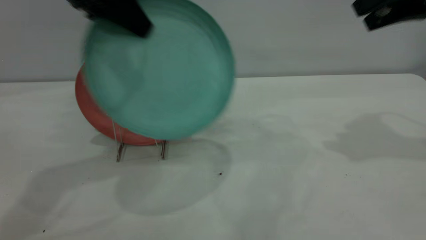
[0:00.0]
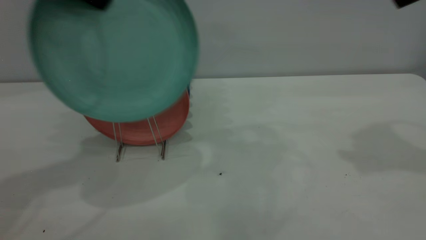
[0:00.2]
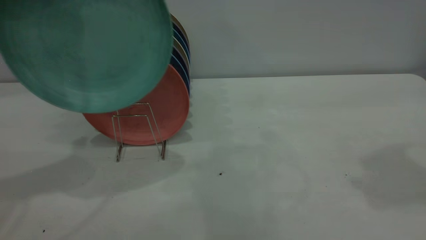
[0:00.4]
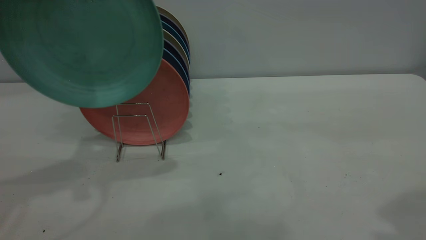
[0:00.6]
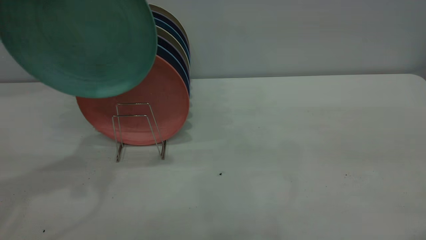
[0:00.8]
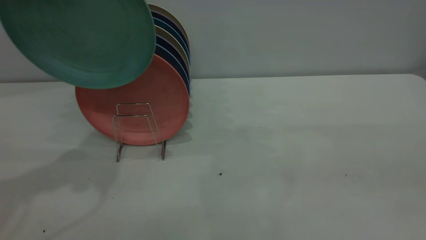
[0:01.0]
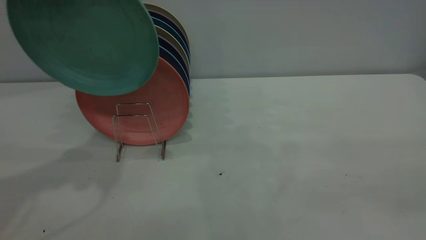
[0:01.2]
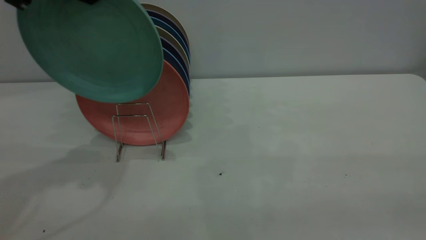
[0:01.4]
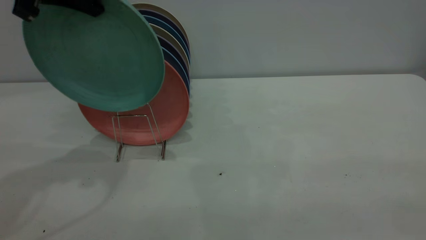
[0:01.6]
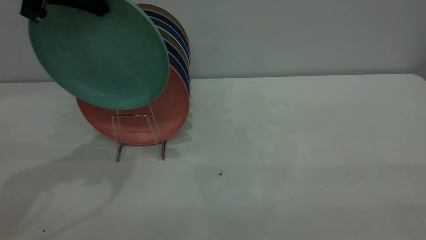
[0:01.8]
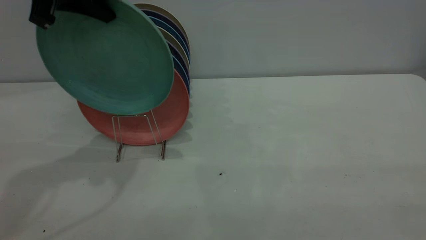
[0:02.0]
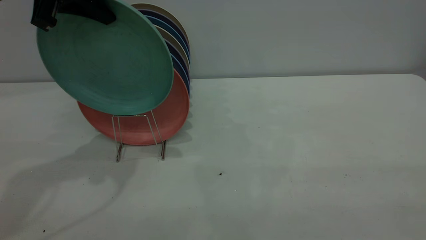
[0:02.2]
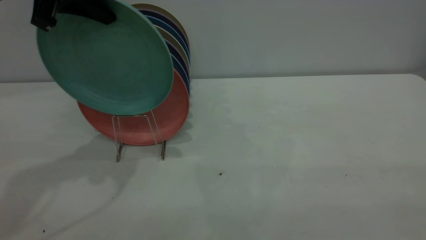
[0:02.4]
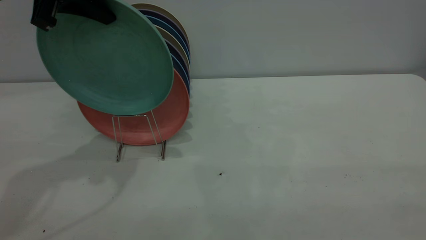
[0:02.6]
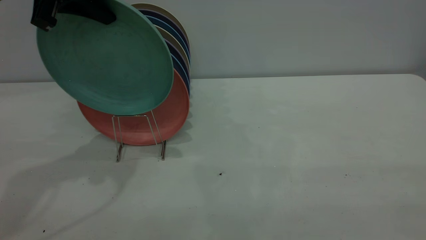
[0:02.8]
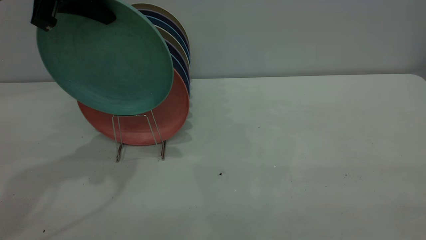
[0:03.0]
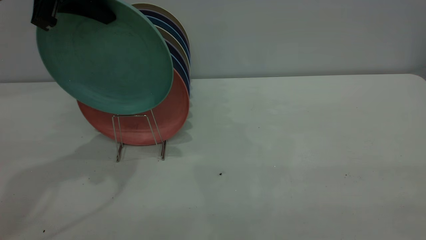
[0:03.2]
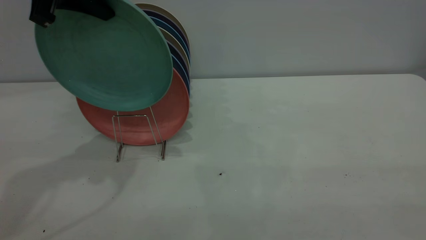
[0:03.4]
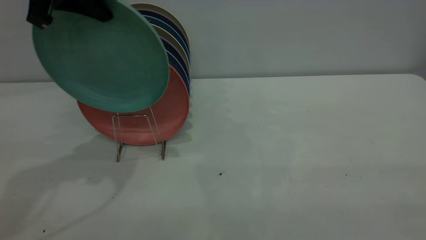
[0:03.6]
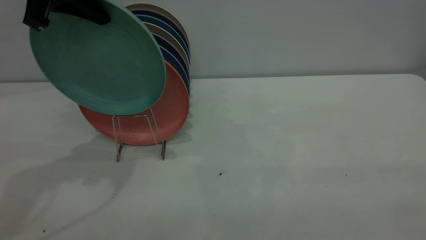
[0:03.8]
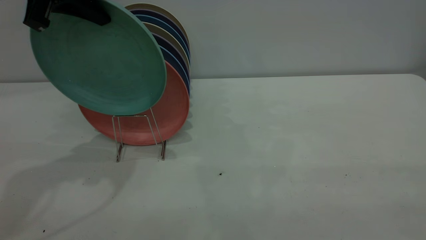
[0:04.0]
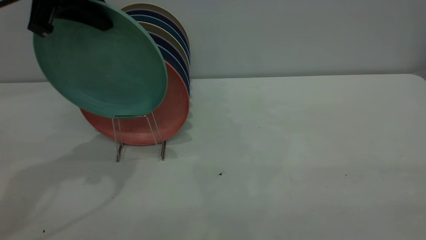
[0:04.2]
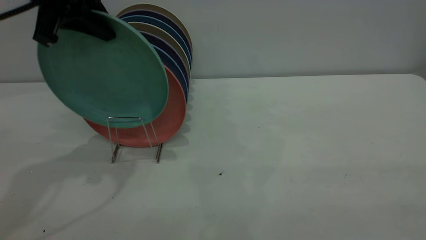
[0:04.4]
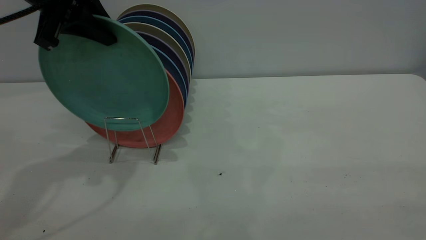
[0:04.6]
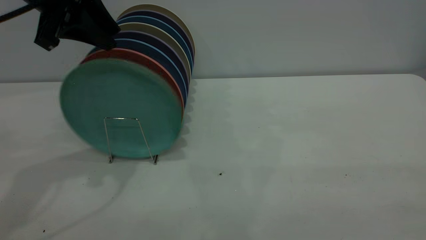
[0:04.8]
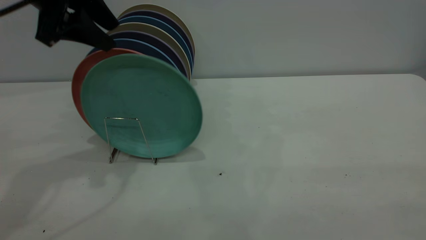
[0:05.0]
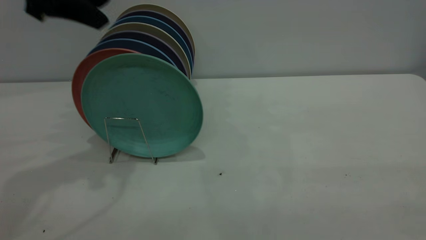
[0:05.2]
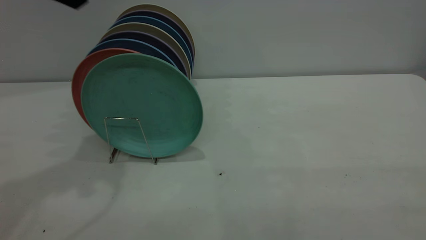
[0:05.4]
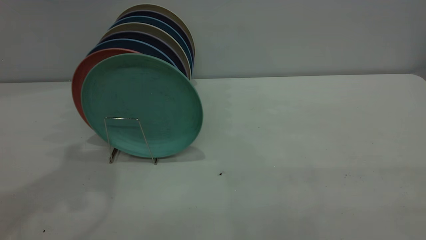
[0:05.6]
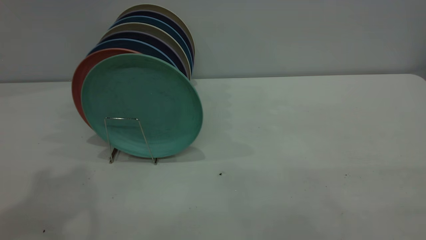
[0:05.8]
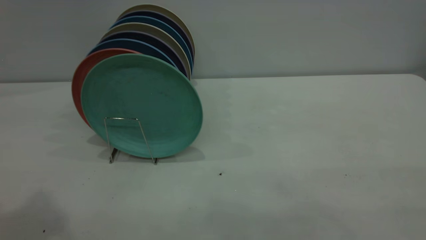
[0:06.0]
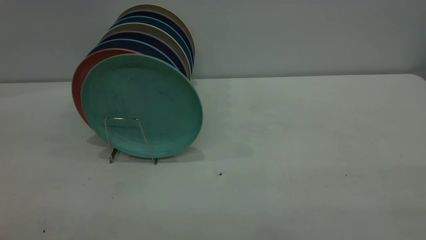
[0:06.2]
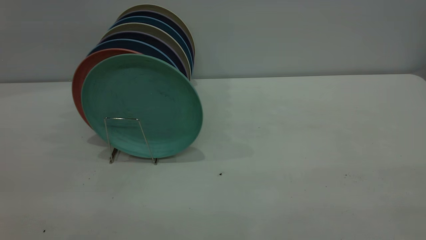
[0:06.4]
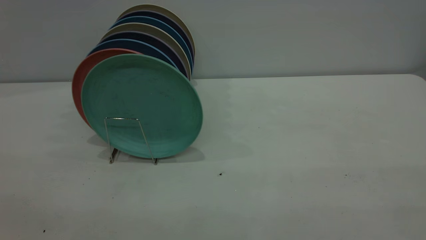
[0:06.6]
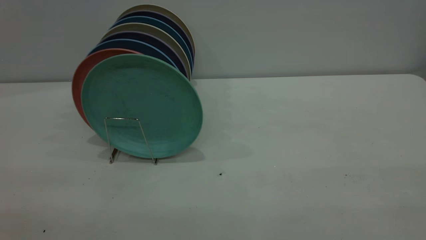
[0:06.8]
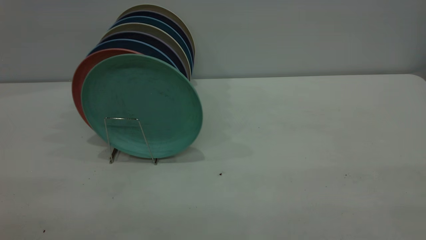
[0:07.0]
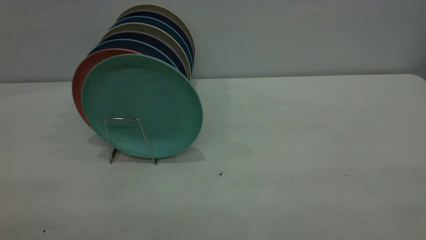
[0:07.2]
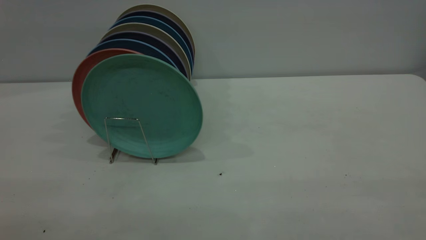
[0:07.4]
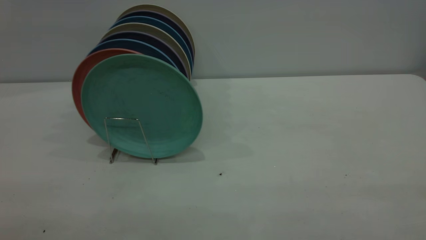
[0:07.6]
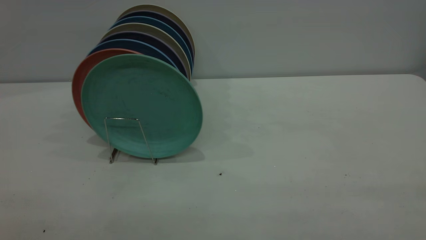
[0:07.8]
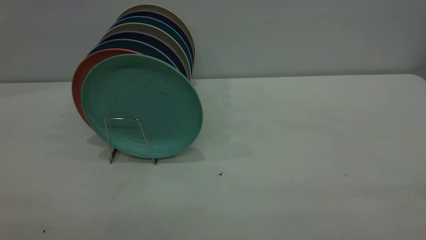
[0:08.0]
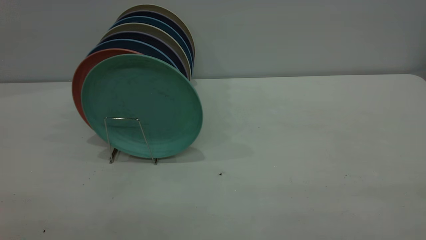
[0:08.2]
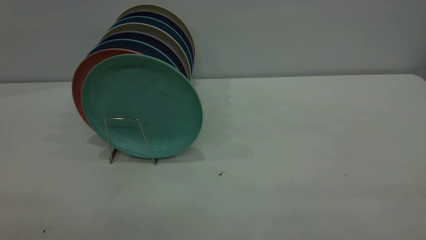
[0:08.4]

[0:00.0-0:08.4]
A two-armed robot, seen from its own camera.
Task of the whole recording: the right gripper grasp the green plate, the right gripper pass the green plate to the left gripper, and the left gripper place the green plate on the plate rack.
Step, 0:00.2 to 0:05.2: Place the plate on the shelf.
0:00.0 to 0:01.4: The right gripper travels backward by approximately 35 cm.
0:01.4 to 0:02.8: The grippers make only small movements.
0:02.8 to 0:04.2: Both grippers stay put.
0:04.2 to 0:05.6: The left gripper moves upward and backward, some 10 cm, and opens up.
